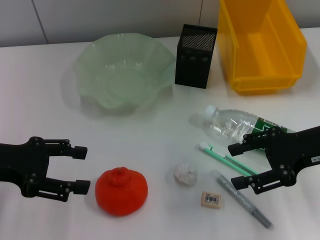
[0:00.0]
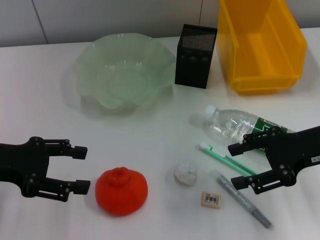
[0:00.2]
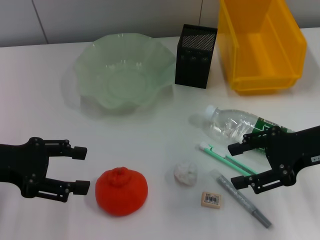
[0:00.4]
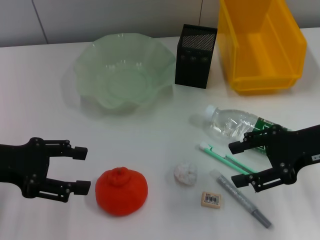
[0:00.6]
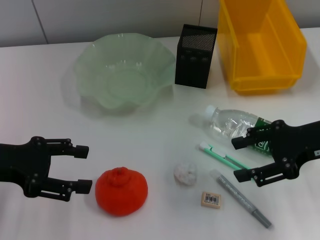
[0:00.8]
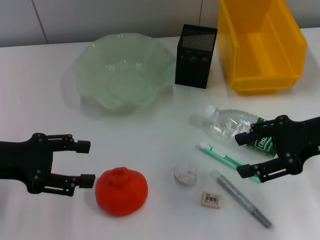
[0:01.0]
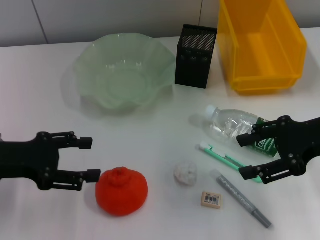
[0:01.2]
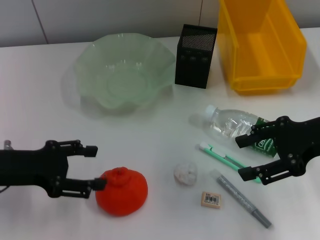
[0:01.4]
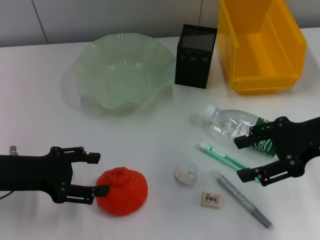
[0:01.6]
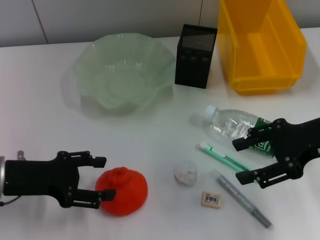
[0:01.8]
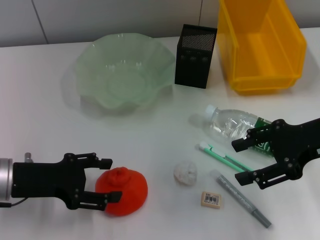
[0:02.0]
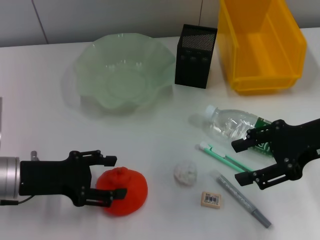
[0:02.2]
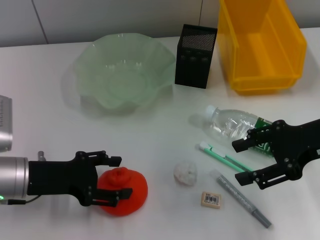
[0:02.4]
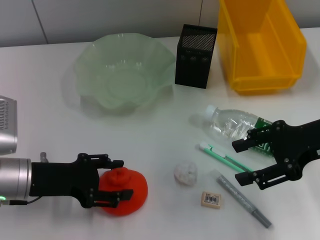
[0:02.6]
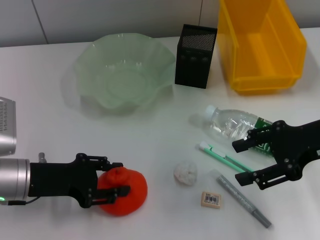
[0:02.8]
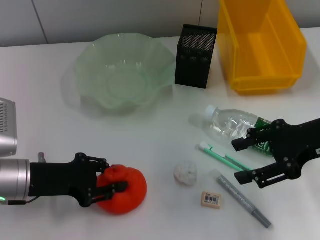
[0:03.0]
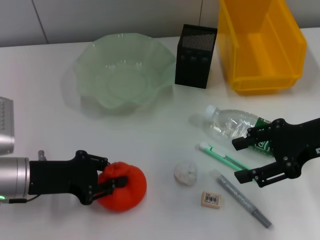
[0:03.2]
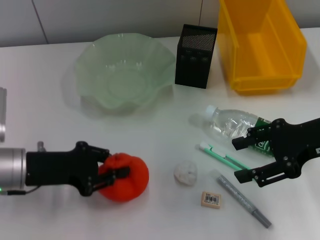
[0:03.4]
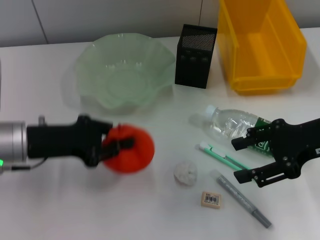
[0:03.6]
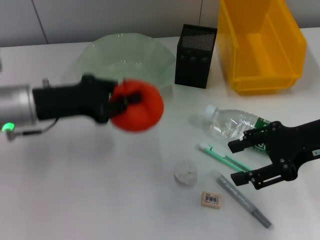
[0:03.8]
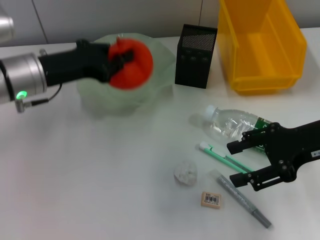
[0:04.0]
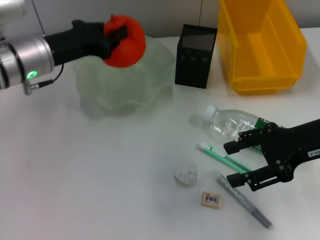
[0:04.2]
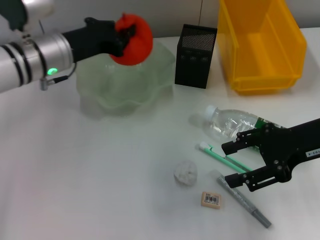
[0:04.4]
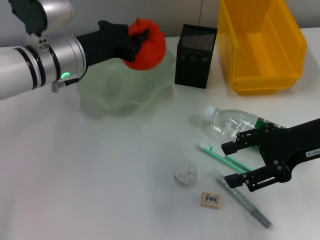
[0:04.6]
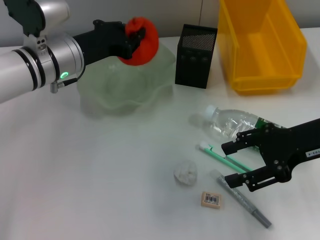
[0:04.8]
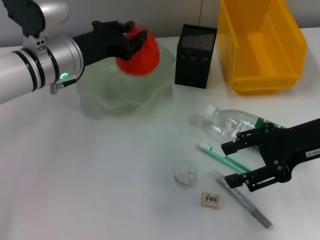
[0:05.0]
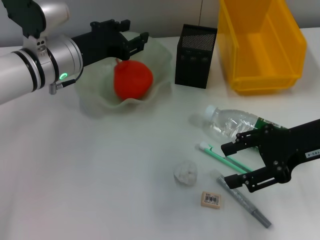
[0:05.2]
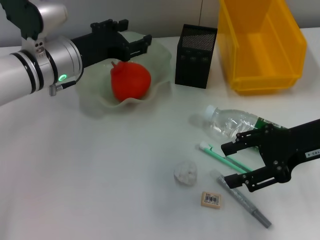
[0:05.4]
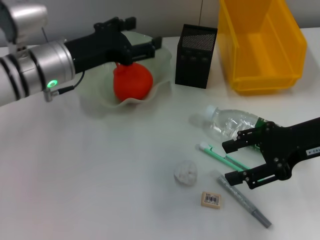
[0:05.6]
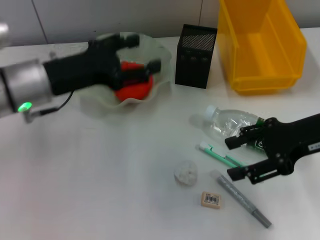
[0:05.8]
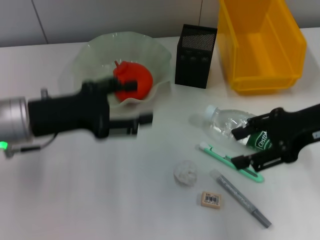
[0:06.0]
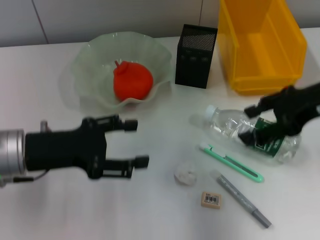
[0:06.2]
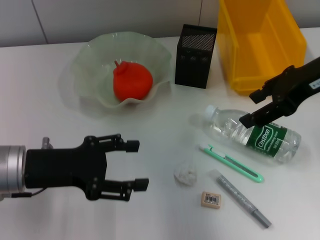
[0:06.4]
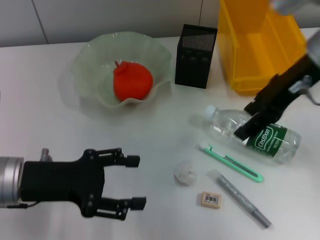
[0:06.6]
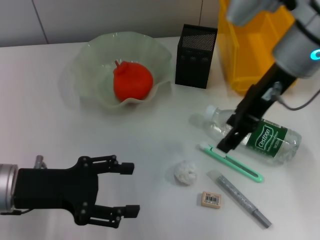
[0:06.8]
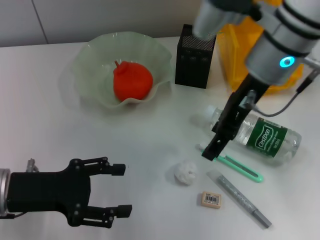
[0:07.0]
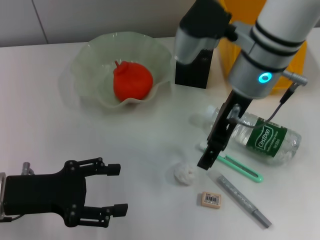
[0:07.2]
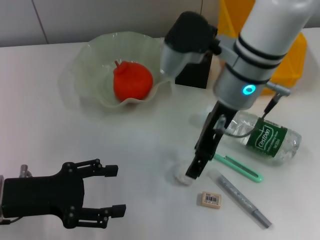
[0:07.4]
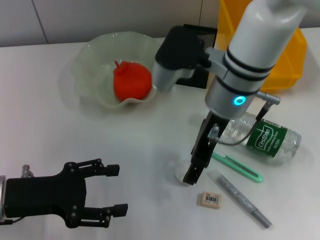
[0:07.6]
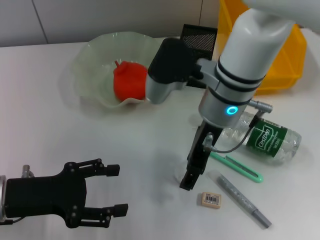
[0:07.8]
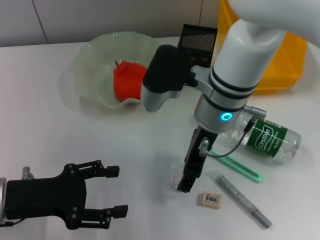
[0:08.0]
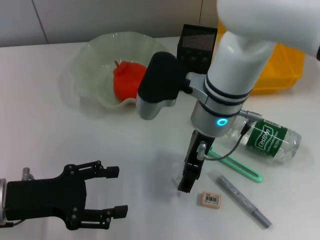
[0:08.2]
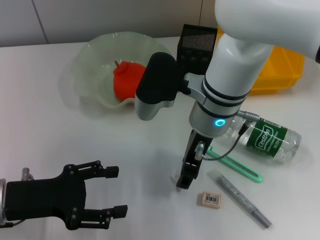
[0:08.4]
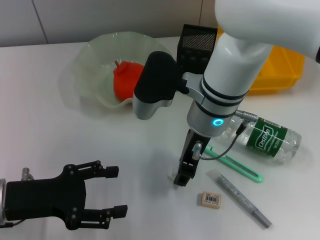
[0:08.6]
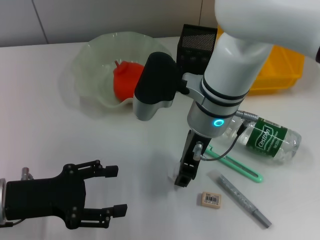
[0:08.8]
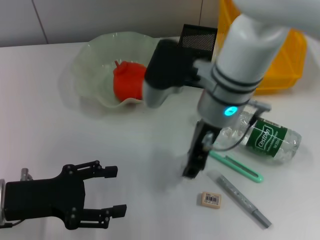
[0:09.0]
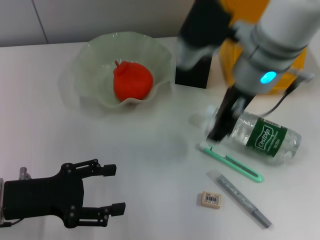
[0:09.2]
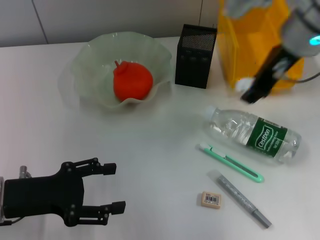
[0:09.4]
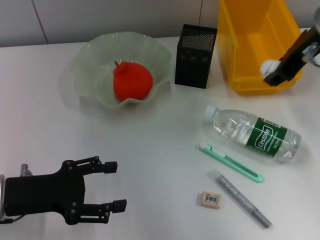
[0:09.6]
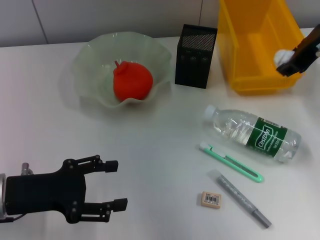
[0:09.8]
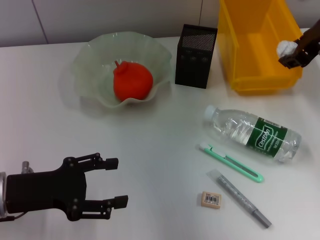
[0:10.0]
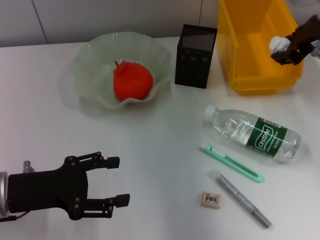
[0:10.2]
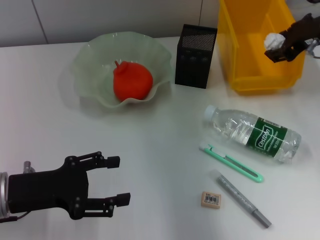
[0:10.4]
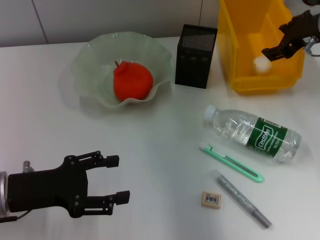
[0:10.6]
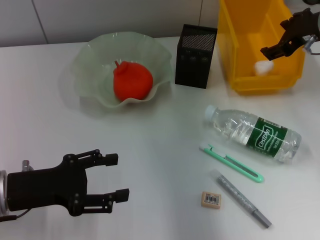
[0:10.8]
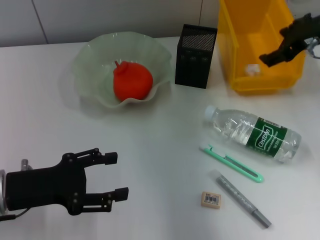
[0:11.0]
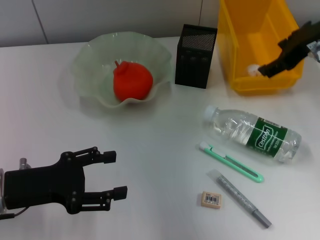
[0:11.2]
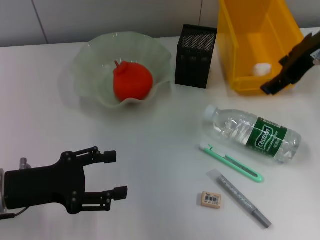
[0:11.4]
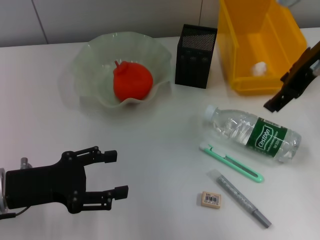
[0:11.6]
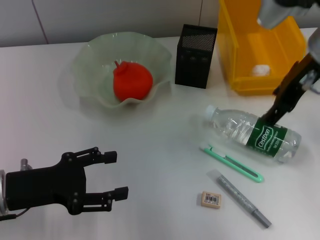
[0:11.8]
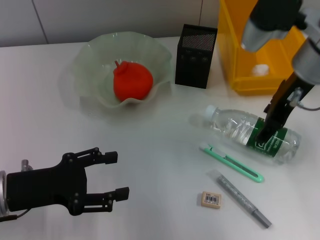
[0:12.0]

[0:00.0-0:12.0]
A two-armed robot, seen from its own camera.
Step, 0:00.0 to 0:03.0: Grab the orange with the left hand.
Step, 0:03.2 to 0:05.2: Place the orange into the fruit bowl with the left hand.
Step, 0:05.6 to 0:08.6: Grab the paper ball with the right hand.
Step, 0:08.8 to 0:10.8: Place the paper ball into the trash can with the right hand.
0:00.0 to 0:01.6: The grippers stay close to where they were, moving slightly.
0:01.6 to 0:03.0: The left gripper closes its fingers.
0:03.0 to 0:04.4: The left gripper goes approximately 15 cm forward, upward and to the right, and closes its fingers.
0:04.4 to 0:06.0: The left gripper travels backward by about 10 cm, and opens up.
0:06.0 to 0:07.6: The left gripper heads backward and downward, covering approximately 10 cm. Meanwhile the right gripper heads to the left, covering about 20 cm.
0:07.6 to 0:09.0: The right gripper closes its fingers.
0:09.0 to 0:10.4: The right gripper is displaced to the right by some 20 cm.
0:10.4 to 0:12.0: The right gripper heads to the left, covering some 5 cm, and opens.

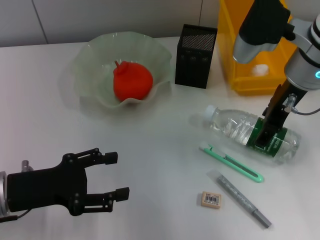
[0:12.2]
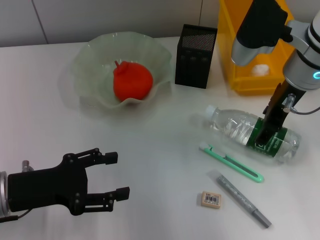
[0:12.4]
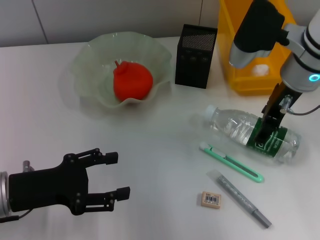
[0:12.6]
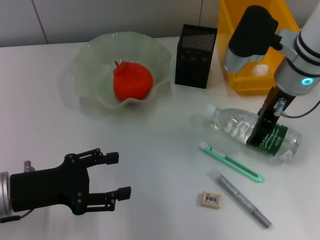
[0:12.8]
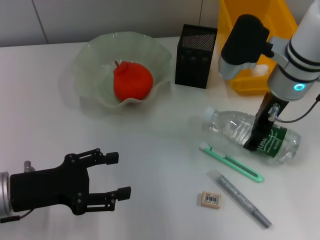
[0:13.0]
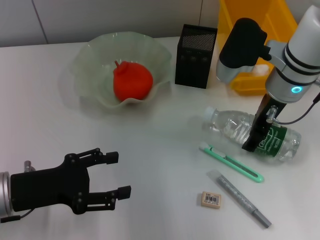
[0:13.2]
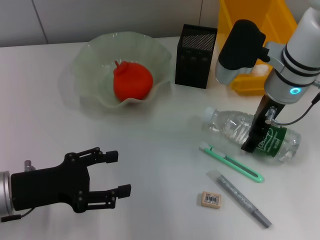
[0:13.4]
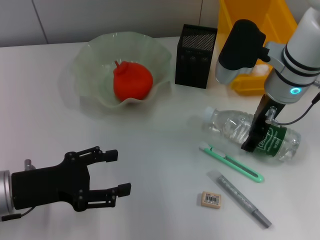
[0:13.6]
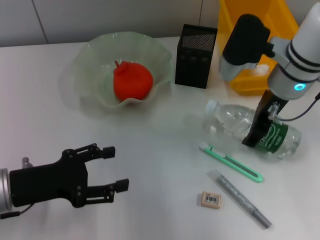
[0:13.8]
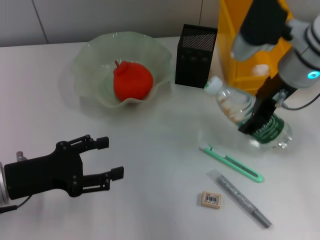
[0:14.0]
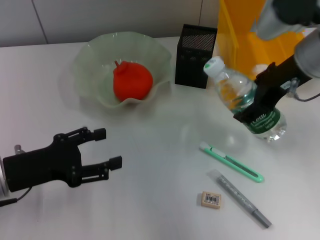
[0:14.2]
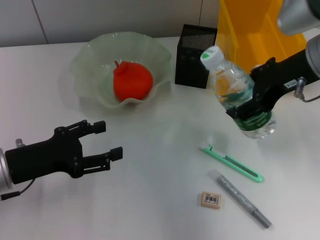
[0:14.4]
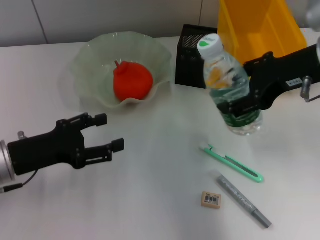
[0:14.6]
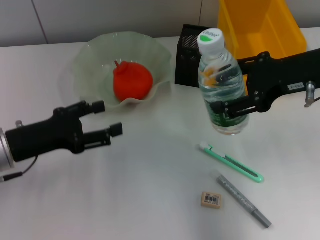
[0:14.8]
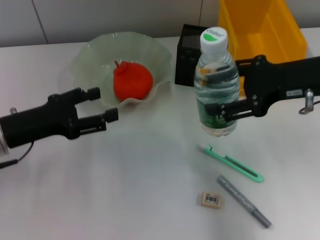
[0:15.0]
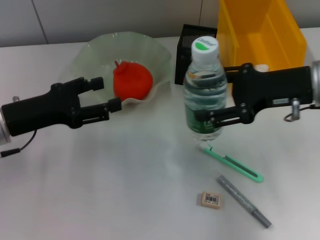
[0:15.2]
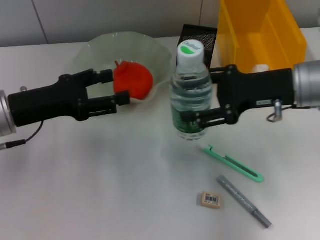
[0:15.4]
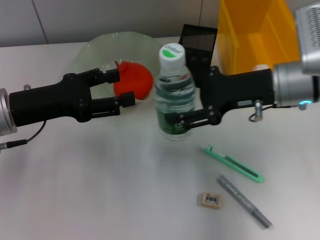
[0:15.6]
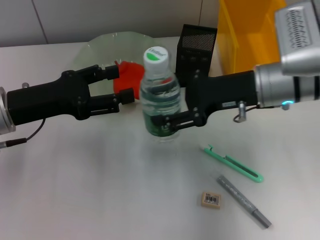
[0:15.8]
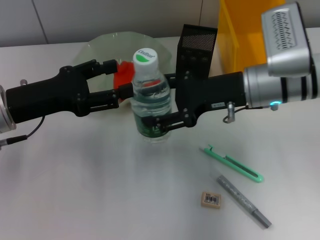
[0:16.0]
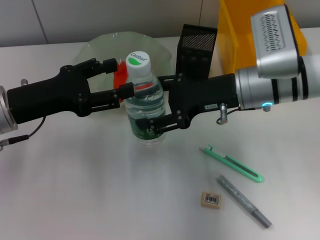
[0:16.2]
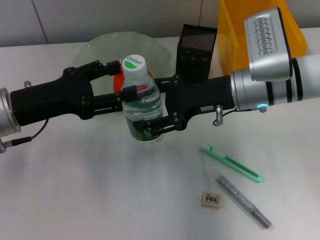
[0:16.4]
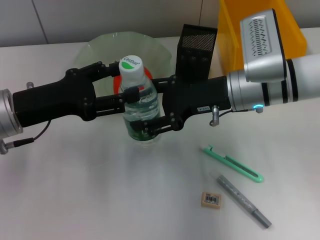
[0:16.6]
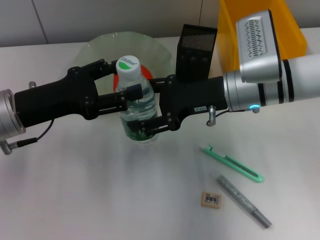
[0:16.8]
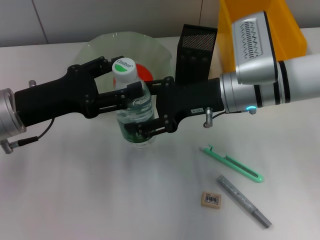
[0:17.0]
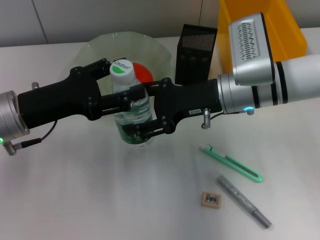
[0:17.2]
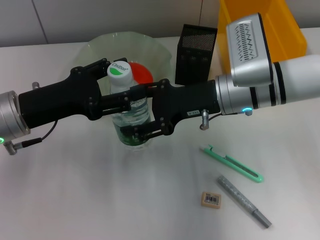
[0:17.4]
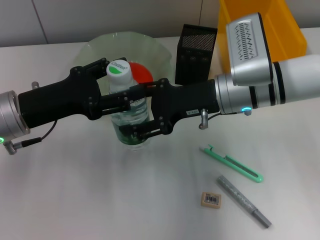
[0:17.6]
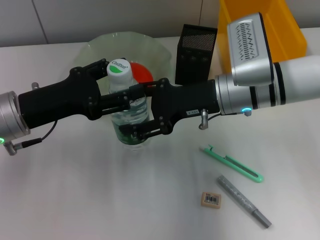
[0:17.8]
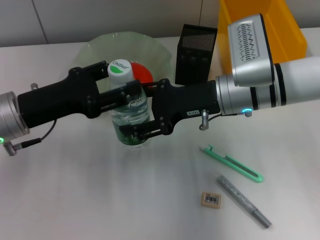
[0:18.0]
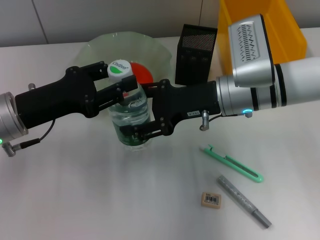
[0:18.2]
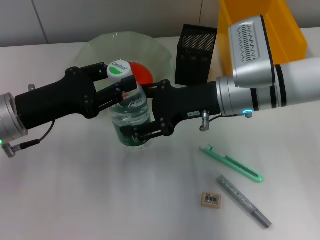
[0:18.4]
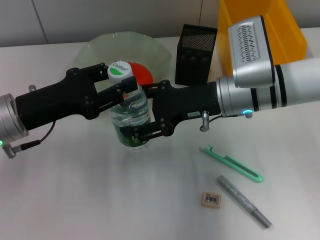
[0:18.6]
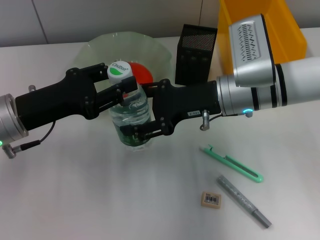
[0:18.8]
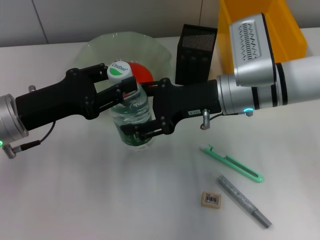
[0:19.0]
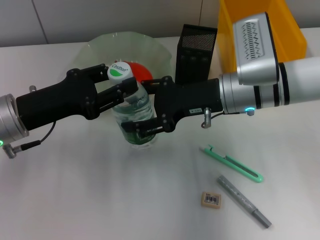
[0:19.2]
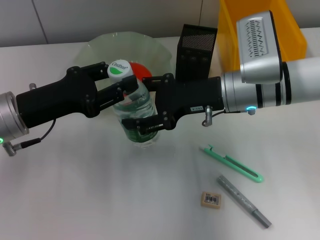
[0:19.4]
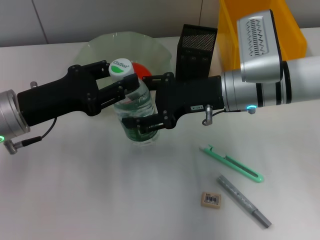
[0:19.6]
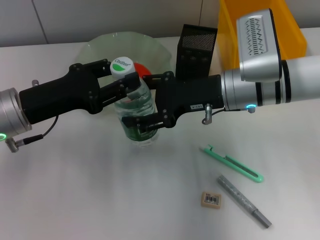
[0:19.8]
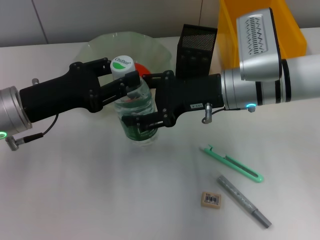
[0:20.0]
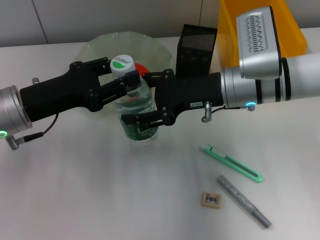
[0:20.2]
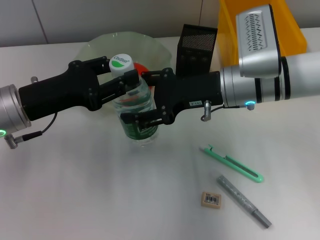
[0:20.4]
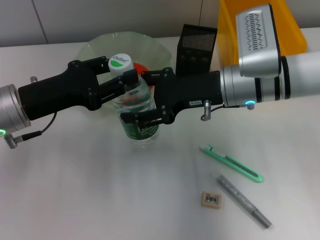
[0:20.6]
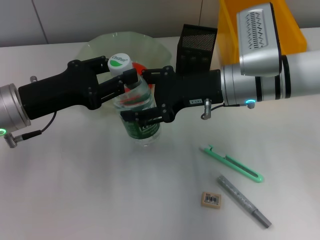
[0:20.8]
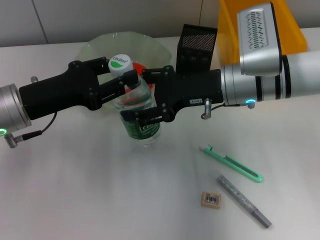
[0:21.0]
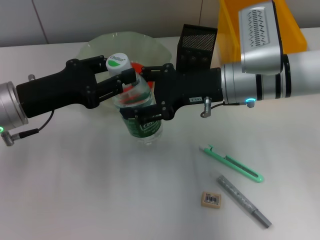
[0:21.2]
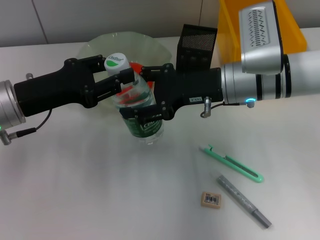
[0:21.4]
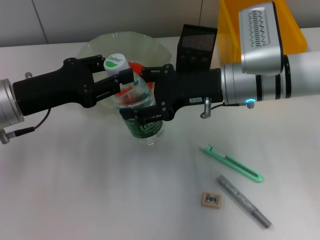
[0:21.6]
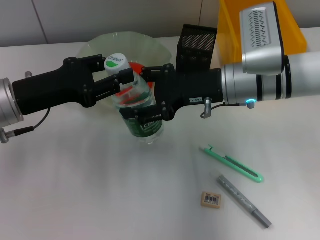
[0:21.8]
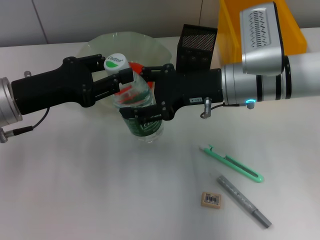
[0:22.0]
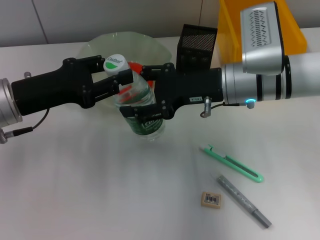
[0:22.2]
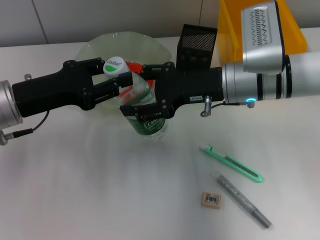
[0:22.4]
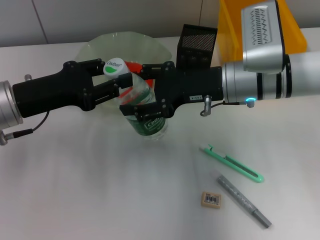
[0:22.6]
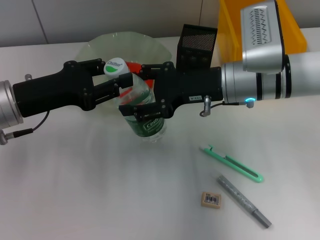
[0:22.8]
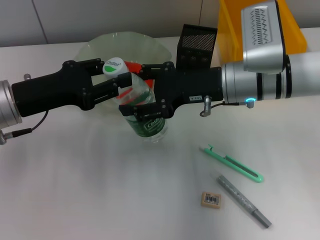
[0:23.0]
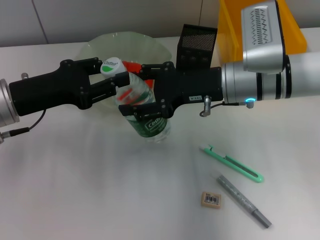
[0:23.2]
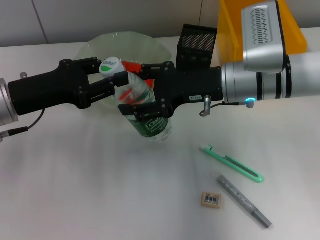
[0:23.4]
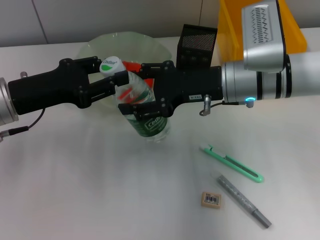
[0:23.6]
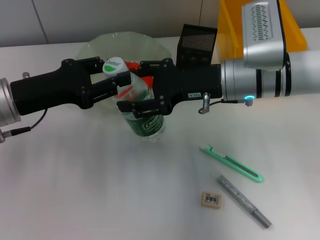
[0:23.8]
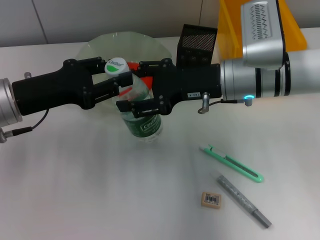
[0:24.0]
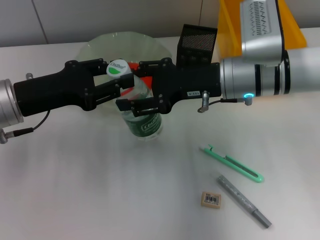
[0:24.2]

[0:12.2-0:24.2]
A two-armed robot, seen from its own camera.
Step, 0:12.2 to 0:13.4: Grab the water bottle with the right hand.
0:12.2 to 0:13.8: The grippers move only a little.
0:13.8 to 0:15.2: The left gripper goes approximately 5 cm forward; the right gripper moves backward and to the right, about 10 cm.
0:15.2 to 0:16.6: The right gripper moves to the left, about 10 cm.
0:16.6 to 0:18.2: There are only small adjustments of the grippers.
0:18.2 to 0:19.8: The left gripper closes up.
0:19.8 to 0:21.2: Neither gripper changes place.
0:21.2 to 0:24.2: Both grippers stay about where they are.
